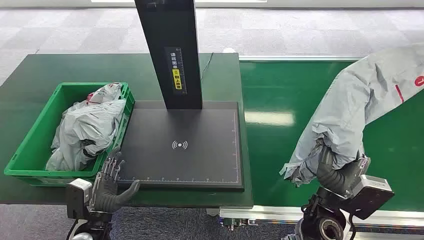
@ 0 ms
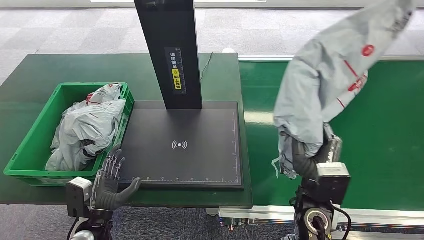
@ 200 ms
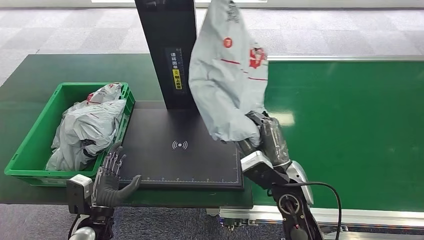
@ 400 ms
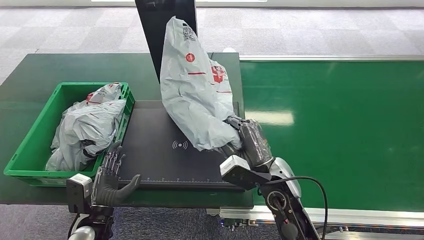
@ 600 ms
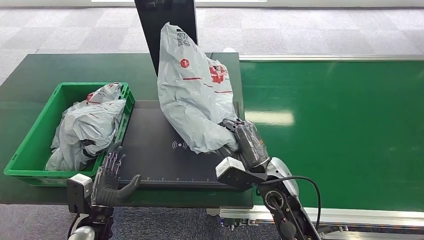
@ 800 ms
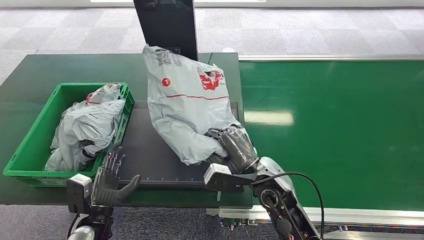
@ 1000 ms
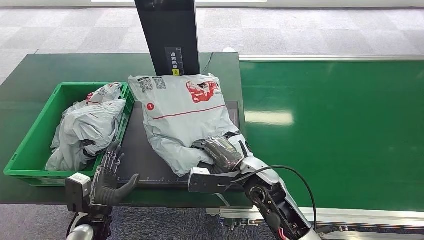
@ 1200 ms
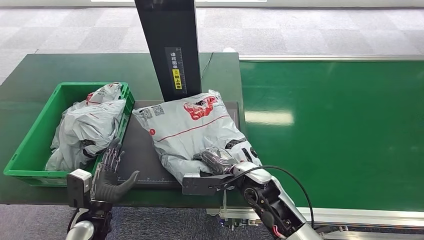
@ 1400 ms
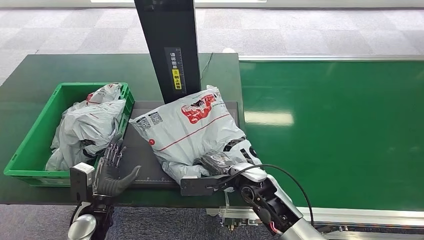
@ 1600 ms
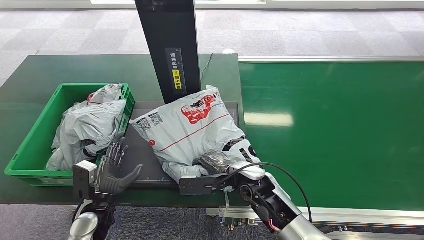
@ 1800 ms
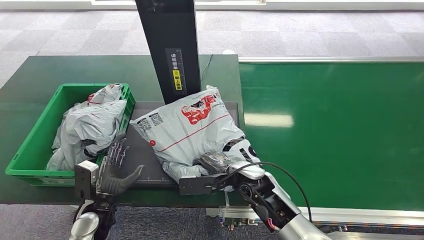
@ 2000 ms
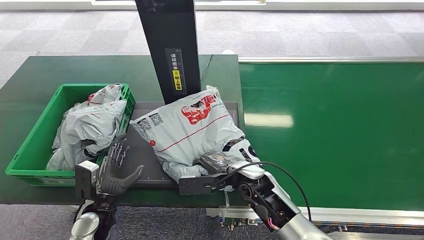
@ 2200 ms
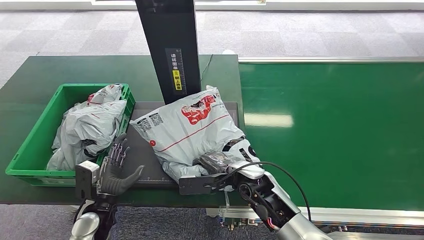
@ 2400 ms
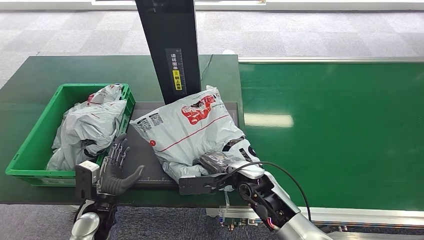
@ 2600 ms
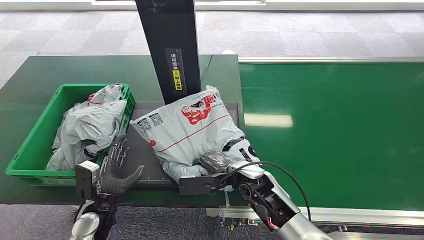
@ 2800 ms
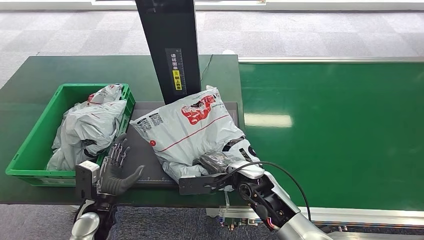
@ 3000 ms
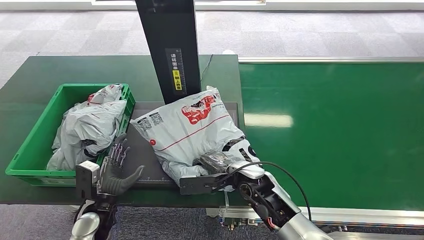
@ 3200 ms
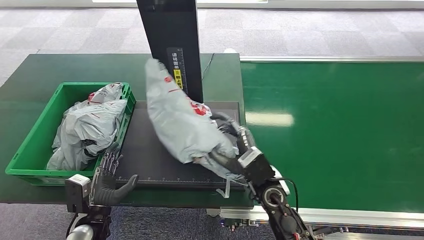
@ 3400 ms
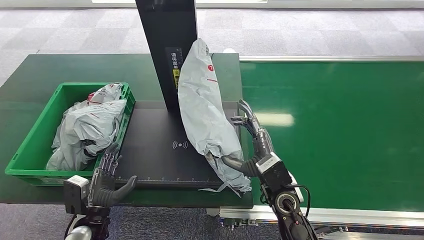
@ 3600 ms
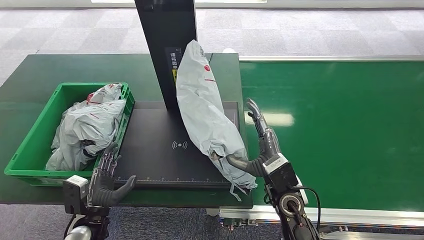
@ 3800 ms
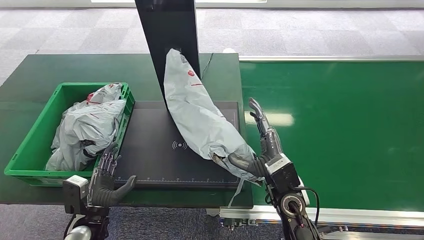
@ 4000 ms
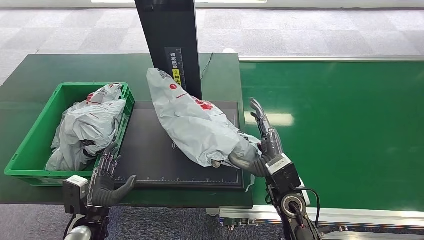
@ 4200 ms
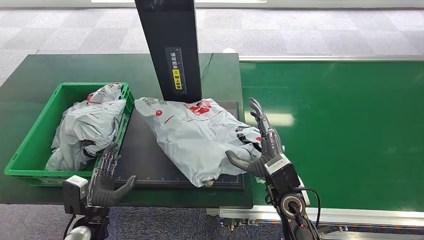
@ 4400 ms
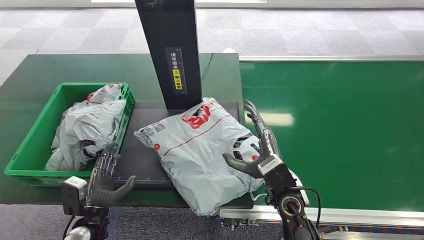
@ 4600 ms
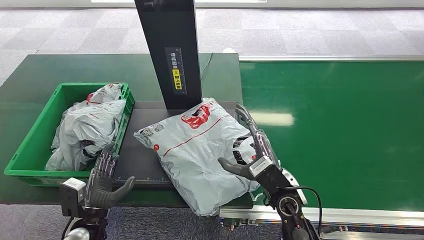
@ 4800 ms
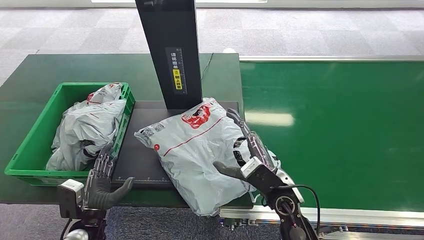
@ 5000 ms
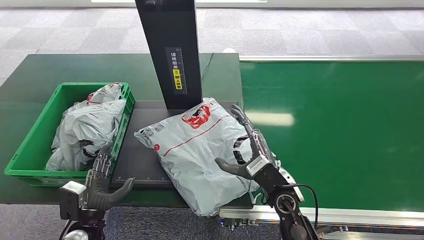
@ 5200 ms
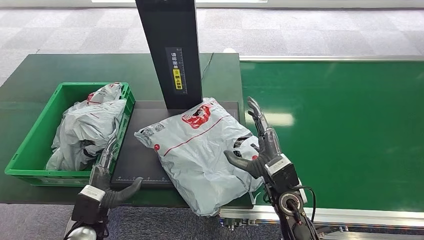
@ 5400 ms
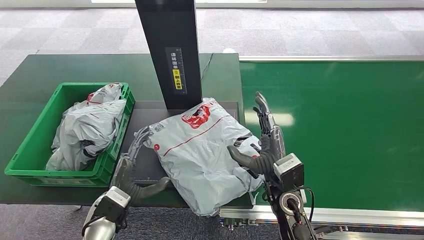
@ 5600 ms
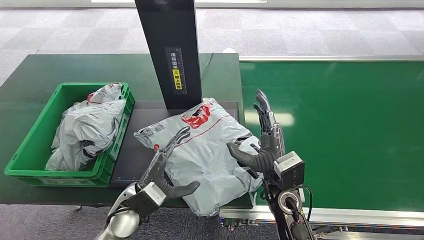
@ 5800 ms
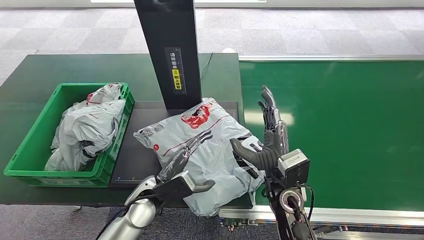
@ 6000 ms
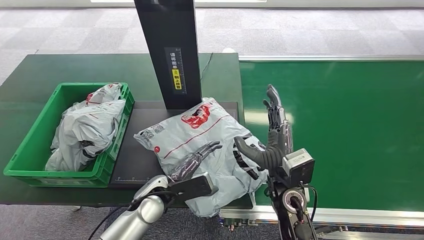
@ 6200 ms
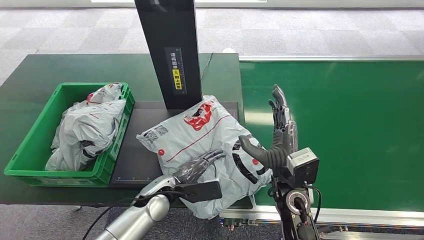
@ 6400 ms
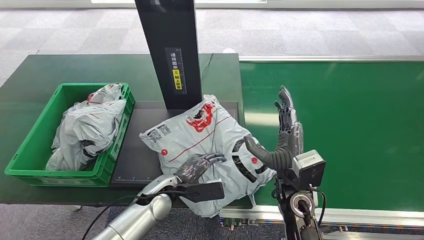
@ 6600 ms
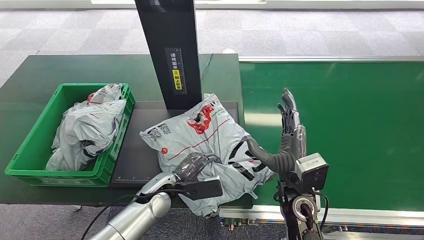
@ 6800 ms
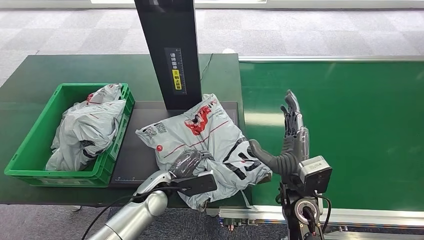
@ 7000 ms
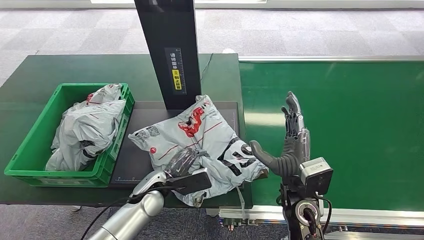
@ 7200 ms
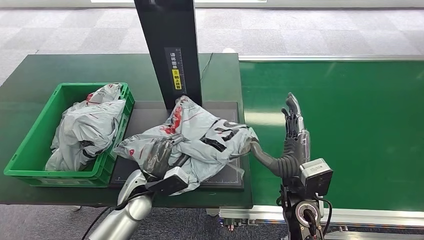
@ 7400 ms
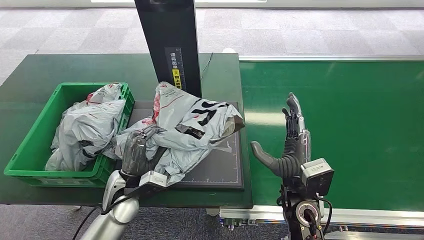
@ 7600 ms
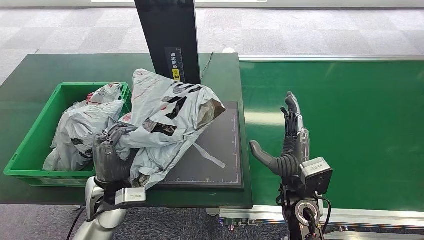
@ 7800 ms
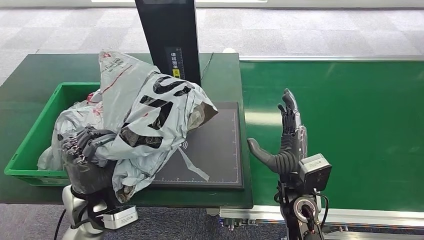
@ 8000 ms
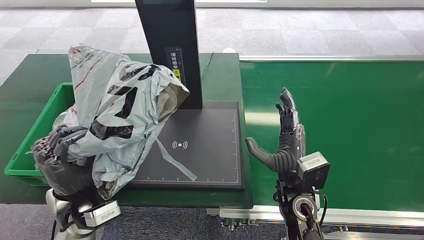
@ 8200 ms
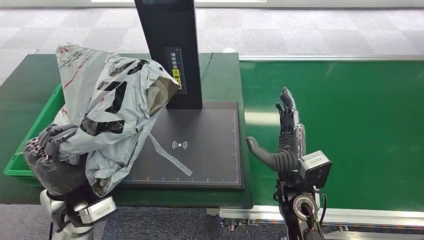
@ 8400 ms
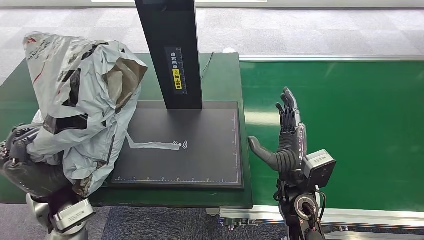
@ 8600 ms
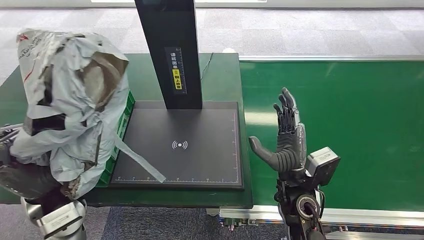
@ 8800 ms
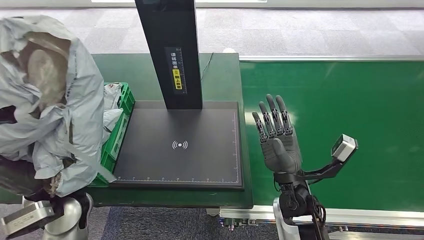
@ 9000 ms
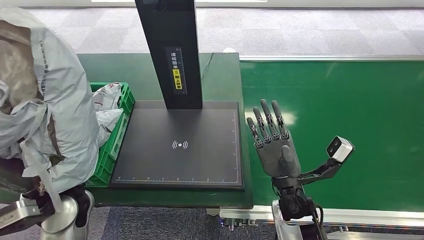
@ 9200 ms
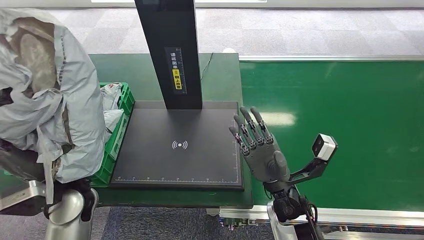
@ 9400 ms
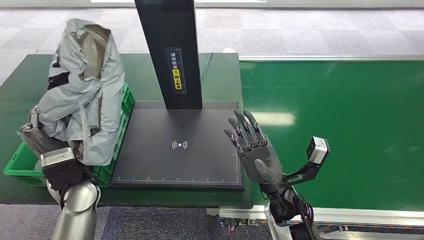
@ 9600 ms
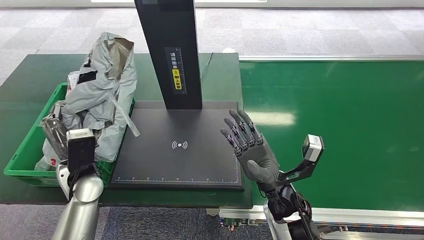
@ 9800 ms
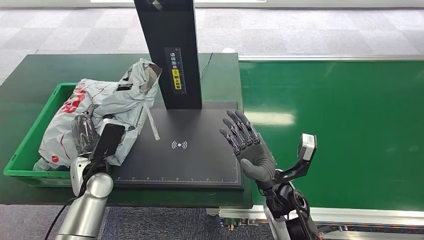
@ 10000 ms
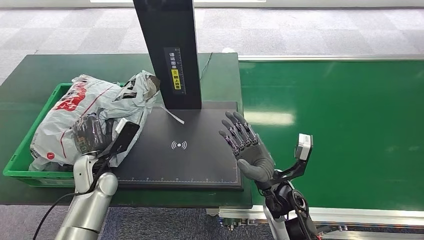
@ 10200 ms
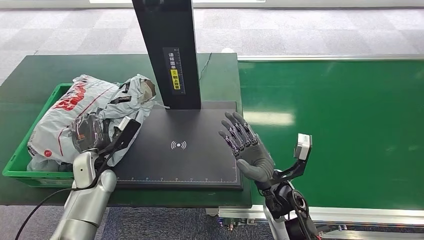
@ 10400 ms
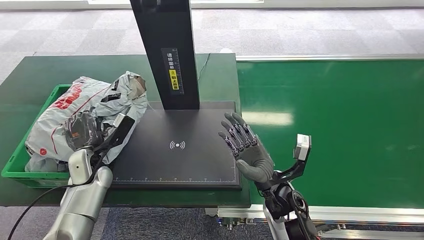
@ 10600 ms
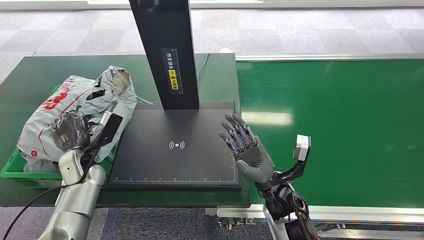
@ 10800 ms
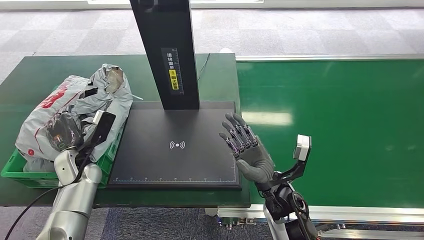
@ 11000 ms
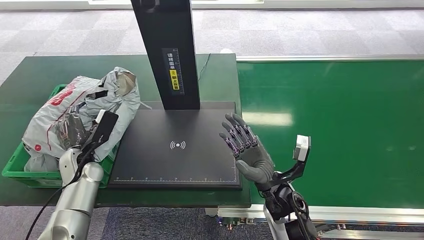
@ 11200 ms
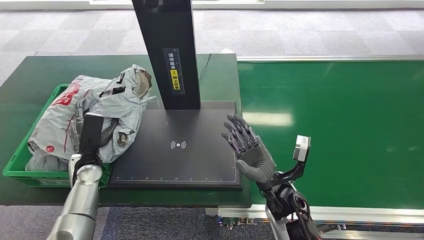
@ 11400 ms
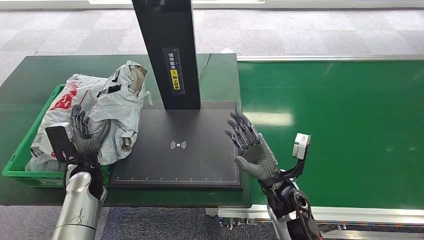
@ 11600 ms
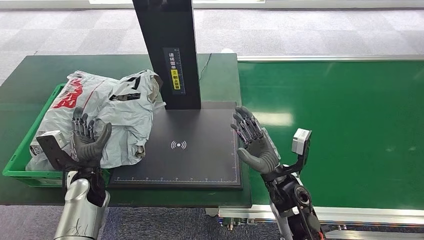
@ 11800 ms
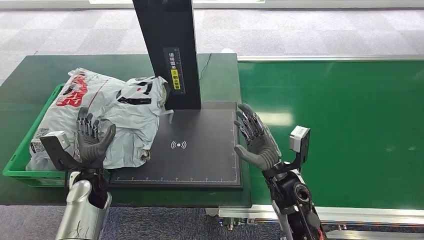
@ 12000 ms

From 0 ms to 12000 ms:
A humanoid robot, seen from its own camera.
Task of the whole recording: Weigh the package on the weighing device and place it in the left basket.
From 1600 ms to 3000 ms: Both hands stay put.
From 3000 ms to 4400 ms: The right hand heads to the right, covering some 5 cm.
From 4400 ms to 6000 ms: The left hand moves to the right, upward and forward, approximately 15 cm.
From 6000 ms to 7600 ms: The left hand shifts about 5 cm to the left.

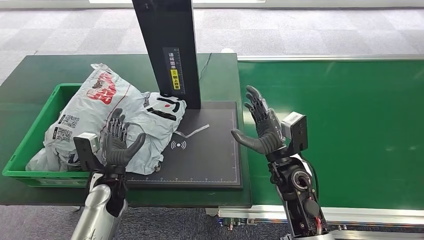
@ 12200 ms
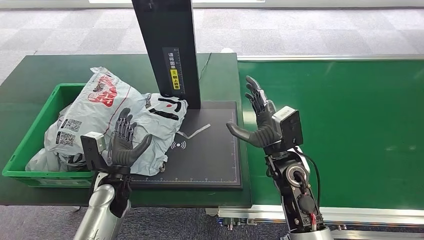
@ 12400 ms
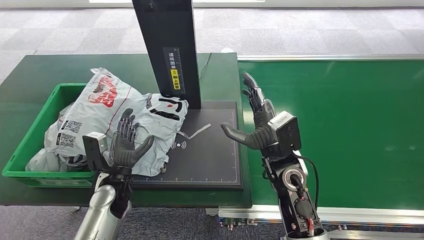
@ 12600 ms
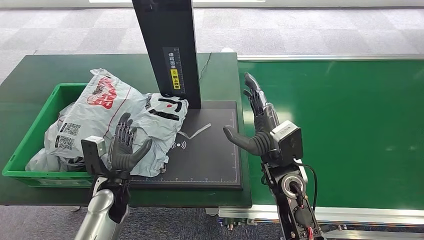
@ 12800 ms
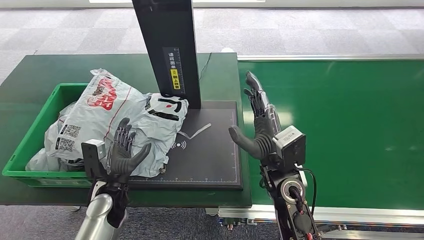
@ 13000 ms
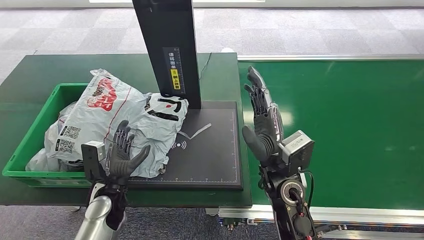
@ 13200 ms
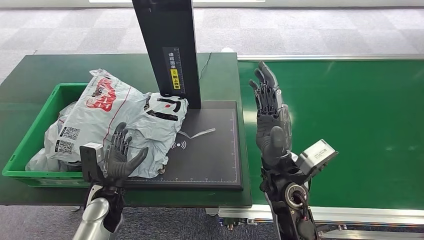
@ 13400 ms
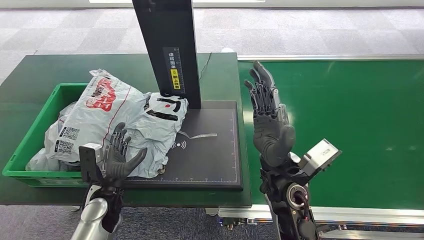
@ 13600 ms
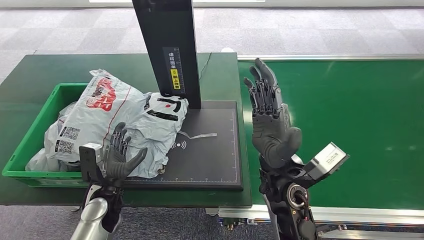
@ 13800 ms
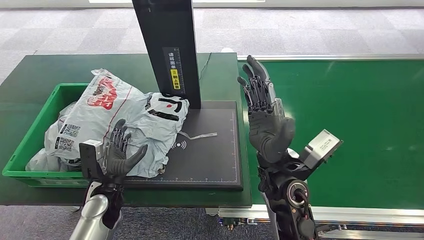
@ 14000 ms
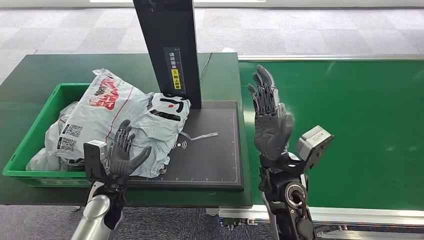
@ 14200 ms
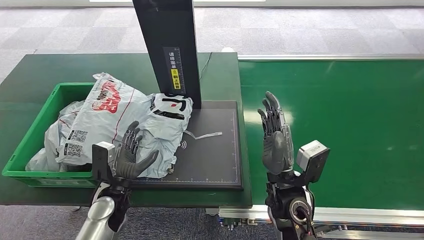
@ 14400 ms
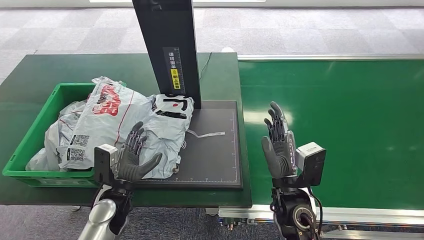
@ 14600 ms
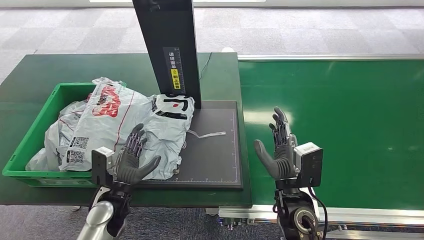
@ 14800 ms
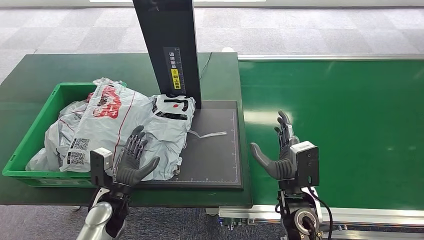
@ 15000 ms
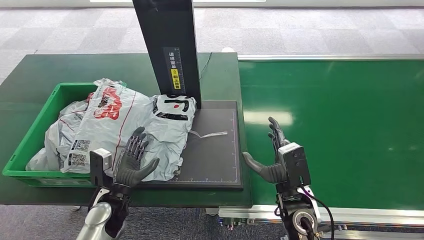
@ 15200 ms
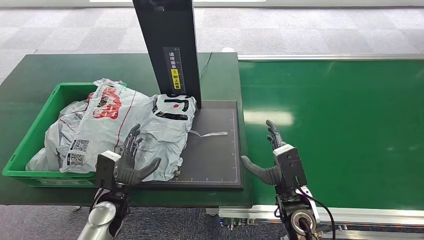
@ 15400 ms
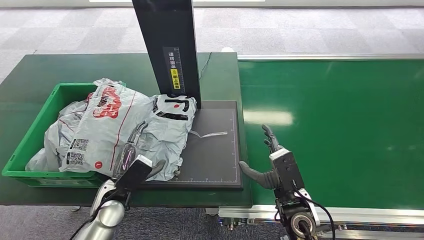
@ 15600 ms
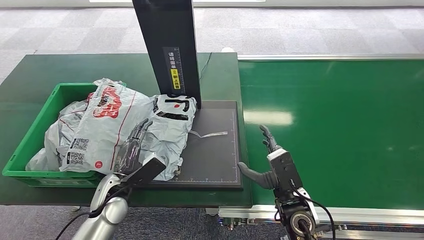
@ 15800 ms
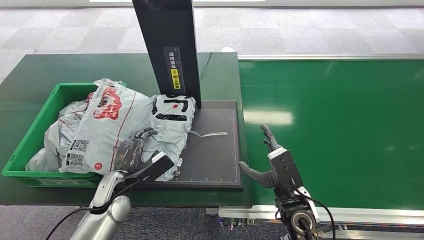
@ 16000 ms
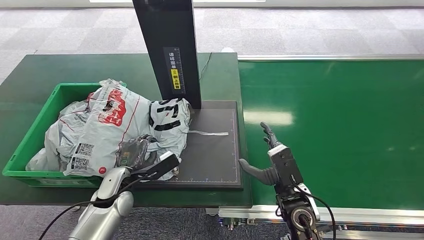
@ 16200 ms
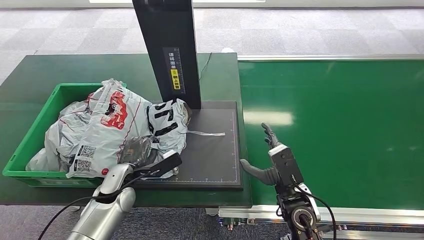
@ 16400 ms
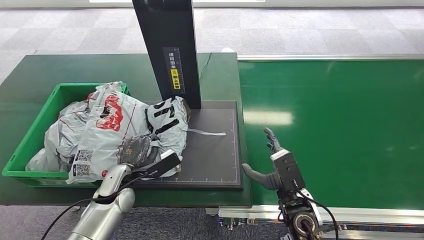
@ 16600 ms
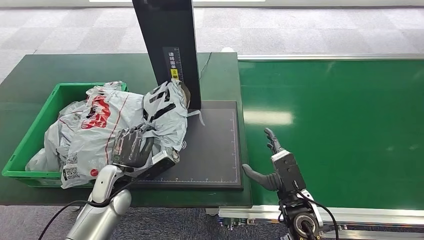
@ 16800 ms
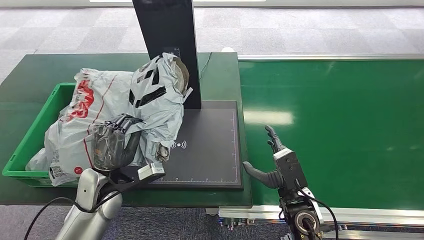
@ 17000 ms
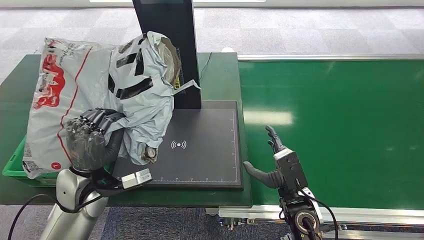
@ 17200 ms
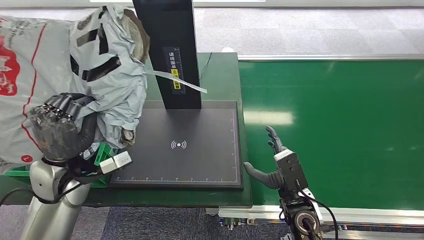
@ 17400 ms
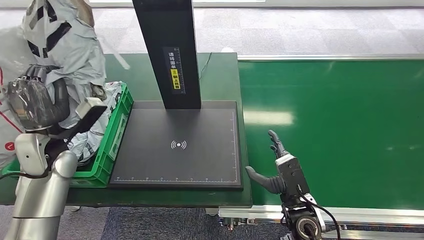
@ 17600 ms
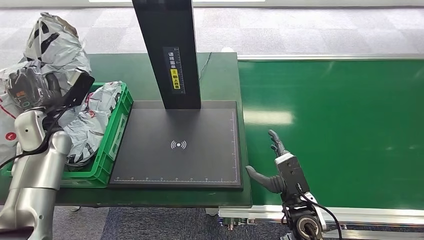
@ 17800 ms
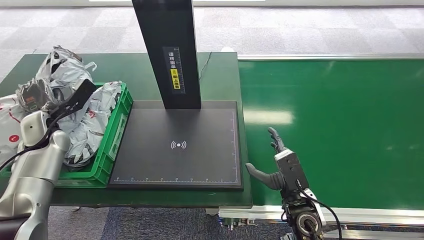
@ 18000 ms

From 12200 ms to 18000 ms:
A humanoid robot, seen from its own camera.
Task of the whole recording: Weigh the package on the weighing device and place it in the left basket.
From 12200 ms to 13600 ms: The right hand travels upward and to the left by approximately 10 cm.
From 13600 ms to 15000 ms: The right hand heads downward and to the right, covering roughly 10 cm.
From 15000 ms to 16600 ms: The left hand heads forward, covering some 5 cm.
